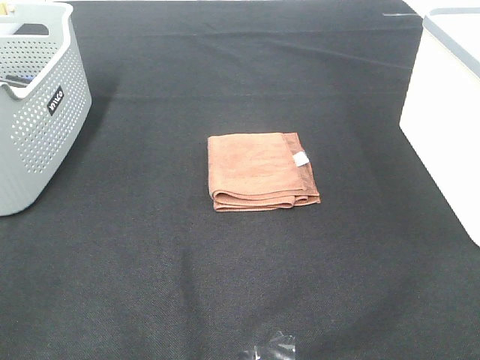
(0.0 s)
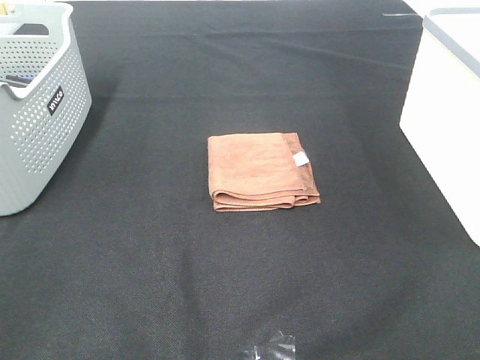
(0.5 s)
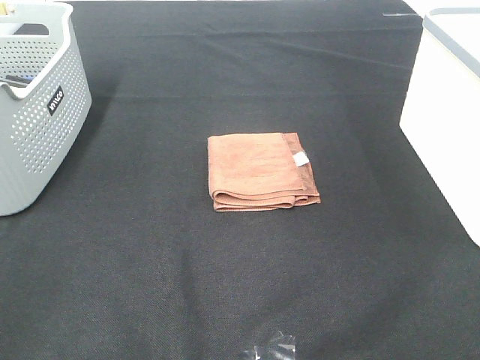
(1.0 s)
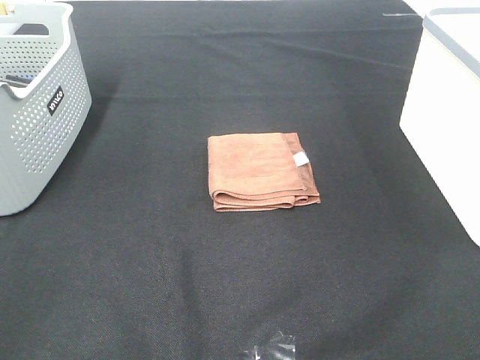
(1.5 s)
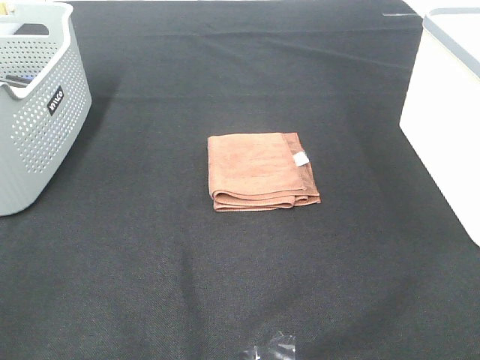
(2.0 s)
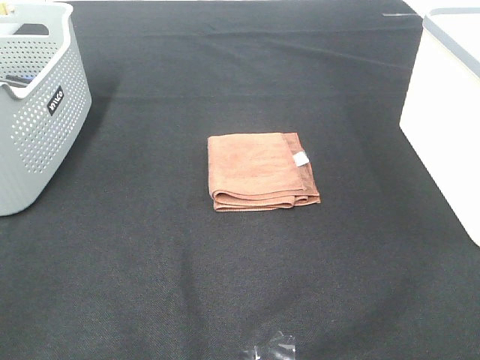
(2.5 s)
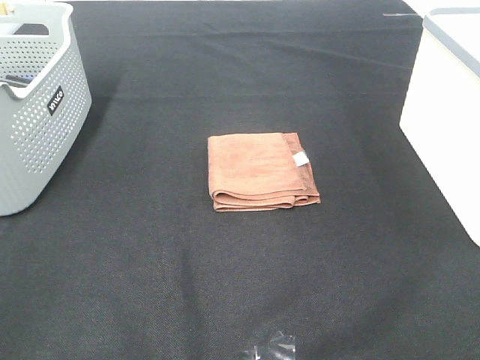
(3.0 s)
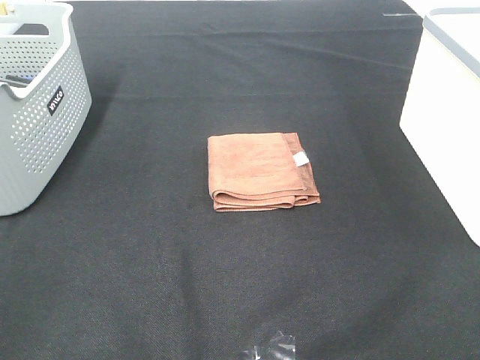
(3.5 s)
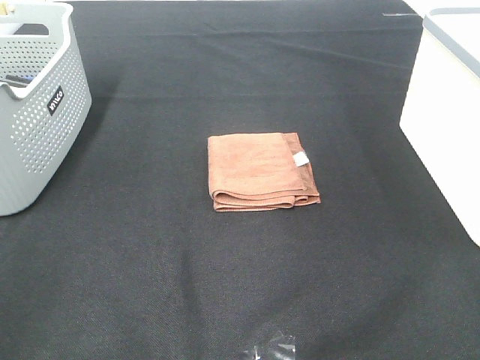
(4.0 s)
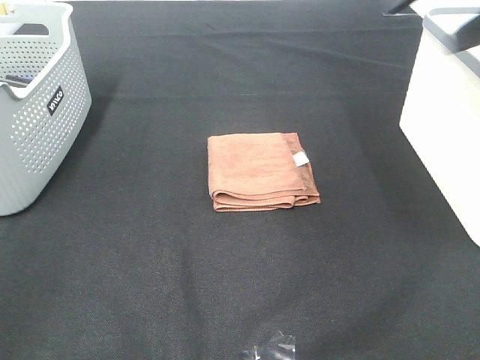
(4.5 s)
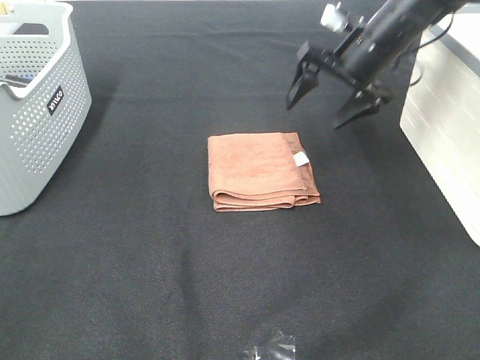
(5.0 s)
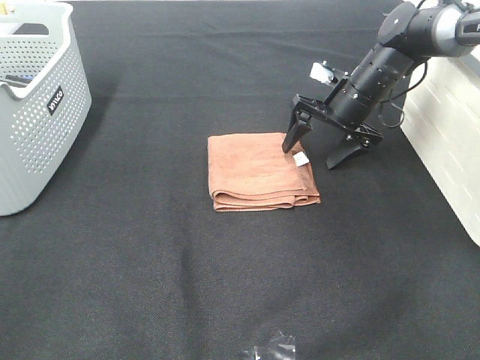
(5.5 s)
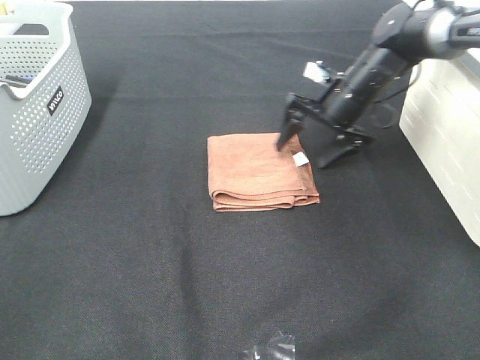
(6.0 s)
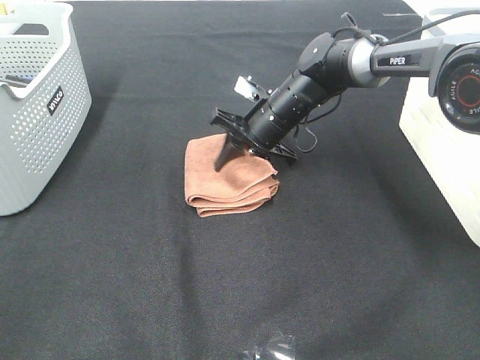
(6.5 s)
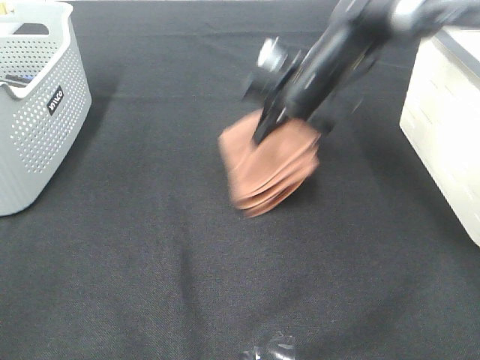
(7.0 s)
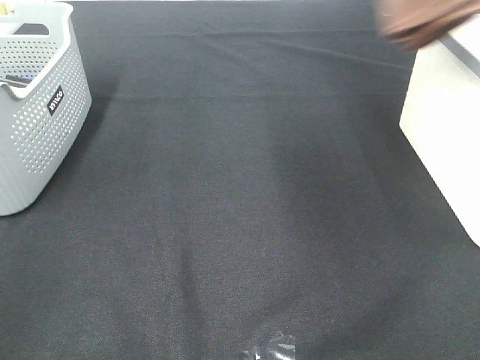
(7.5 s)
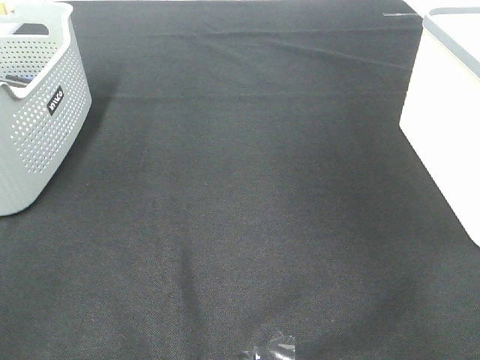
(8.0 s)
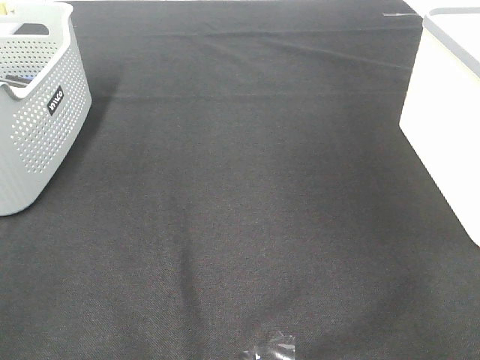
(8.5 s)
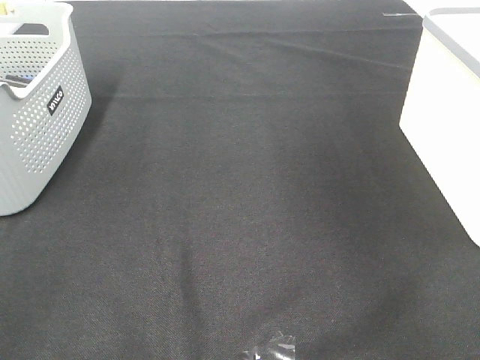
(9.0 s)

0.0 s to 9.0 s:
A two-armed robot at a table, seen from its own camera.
Step, 0.0 to 6.5 s: Right hand: grab the folded brown towel.
Step, 7.0 to 8.5 s: Right hand: place the brown towel in right basket.
0.0 to 2.0 s: Both grippers stay about where they are.
2.0 to 4.5 s: The right gripper goes some 35 cm forward.
4.5 to 7.0 s: The right gripper travels downward, to the left and forward by approximately 25 cm, and closes its fingers.
7.0 to 9.0 s: The right gripper travels to the right and upward by some 30 cm, and opens.

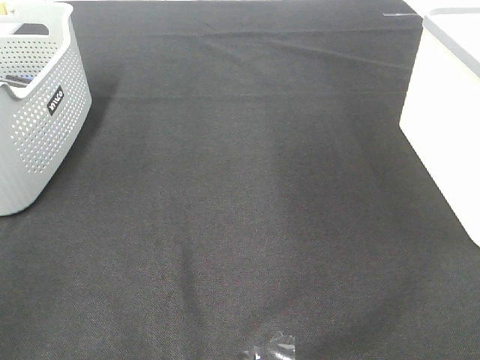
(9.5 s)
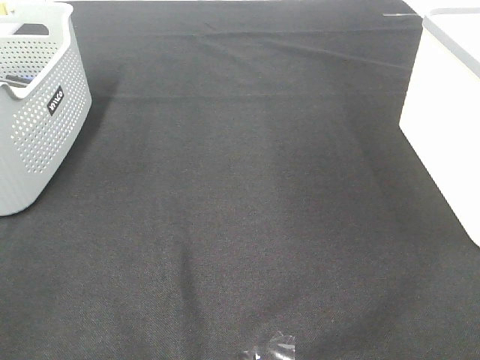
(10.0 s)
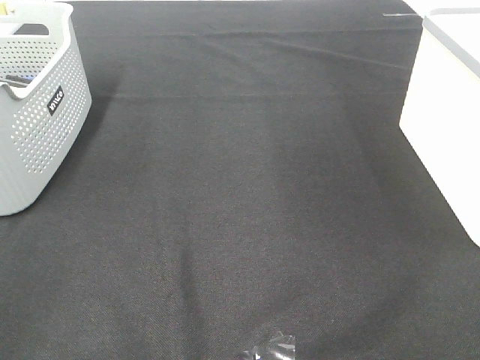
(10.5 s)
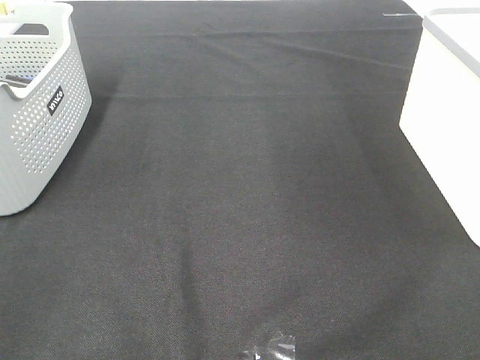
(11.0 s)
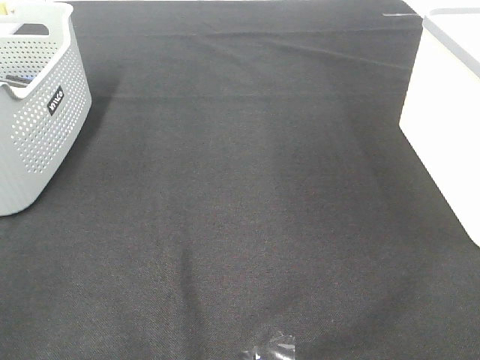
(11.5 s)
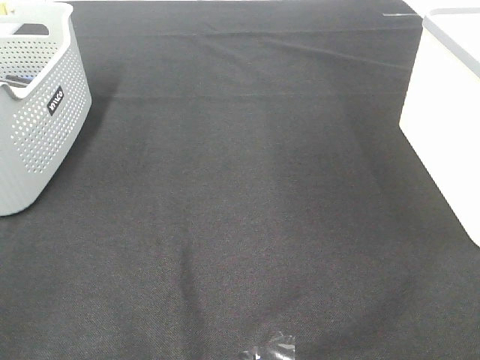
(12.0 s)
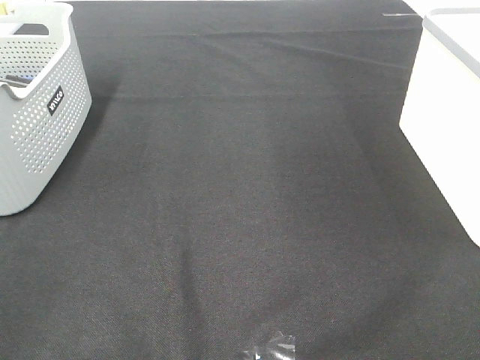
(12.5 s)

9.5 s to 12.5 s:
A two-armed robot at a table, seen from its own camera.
11.0 to 12.5 s: Both grippers stay put.

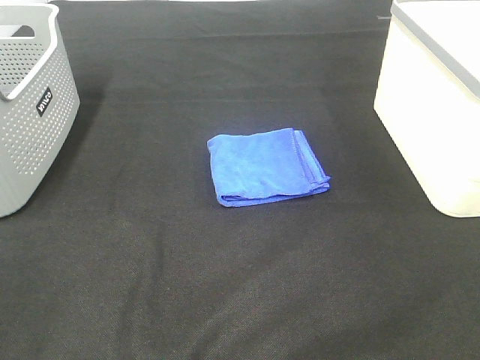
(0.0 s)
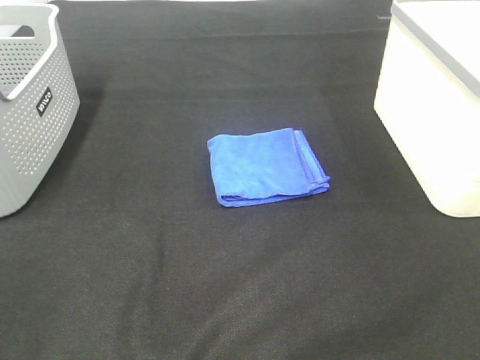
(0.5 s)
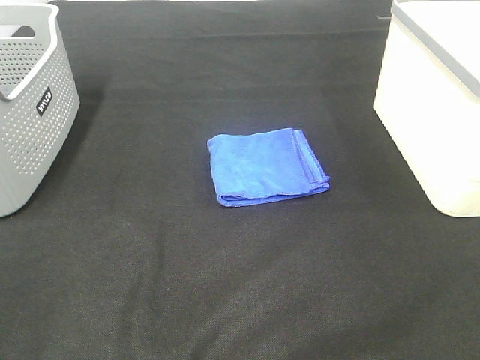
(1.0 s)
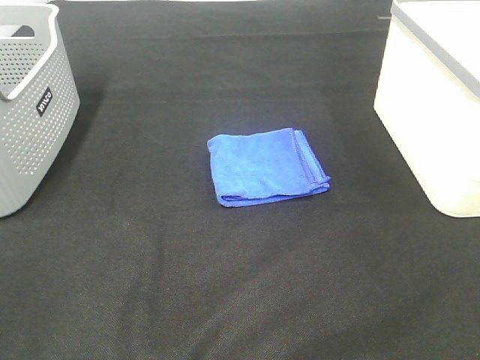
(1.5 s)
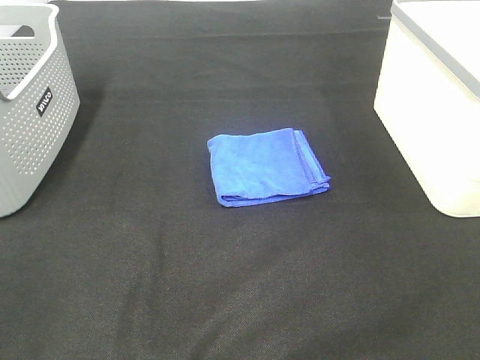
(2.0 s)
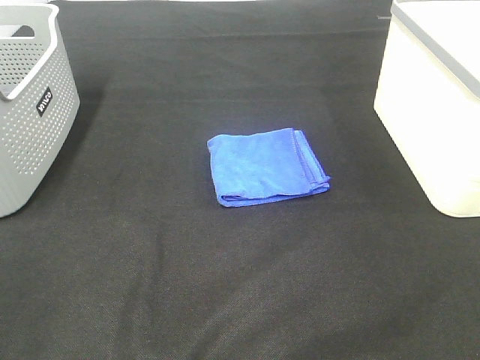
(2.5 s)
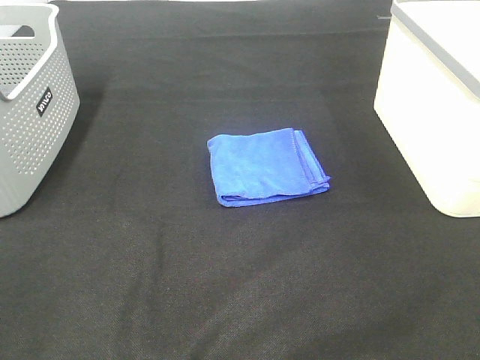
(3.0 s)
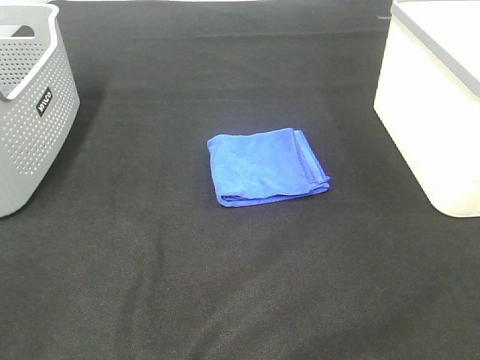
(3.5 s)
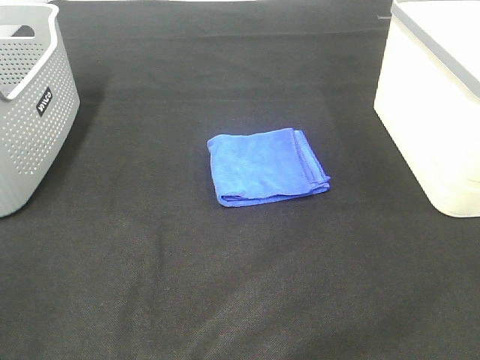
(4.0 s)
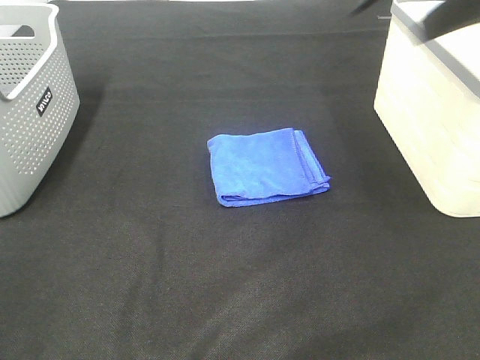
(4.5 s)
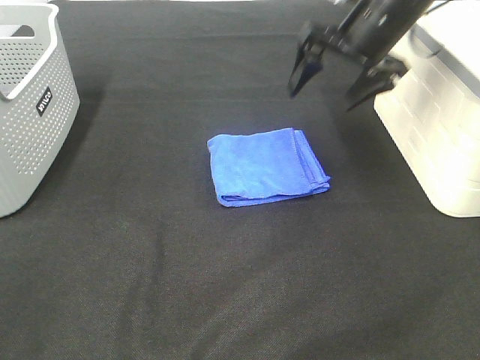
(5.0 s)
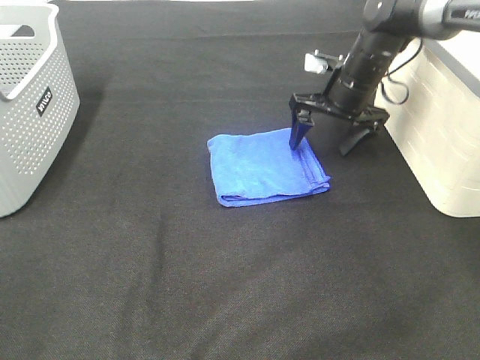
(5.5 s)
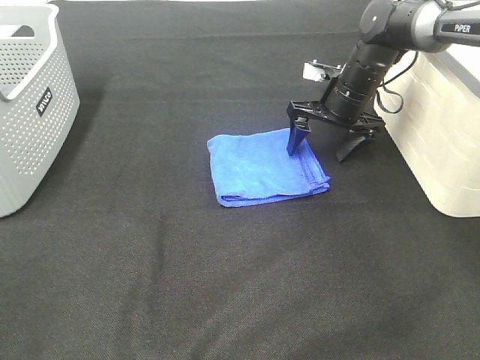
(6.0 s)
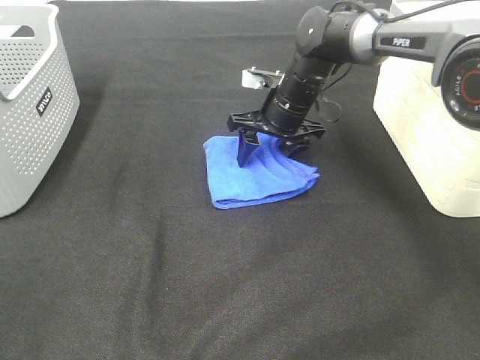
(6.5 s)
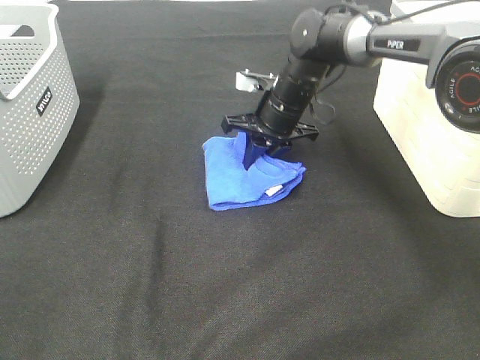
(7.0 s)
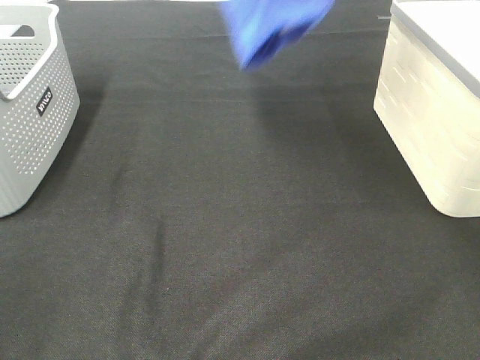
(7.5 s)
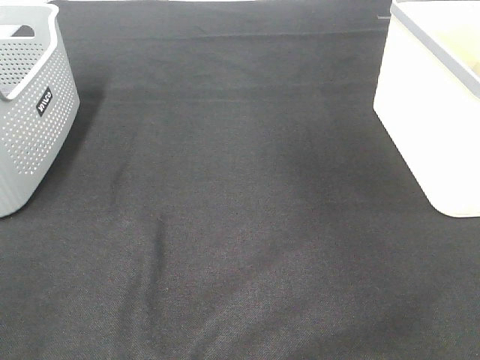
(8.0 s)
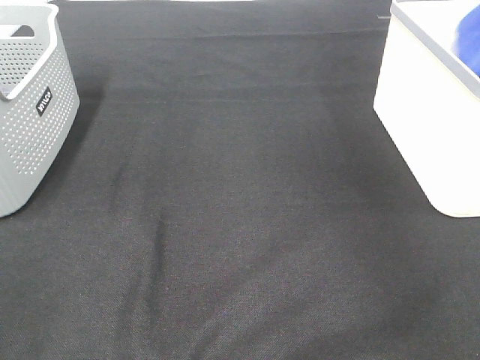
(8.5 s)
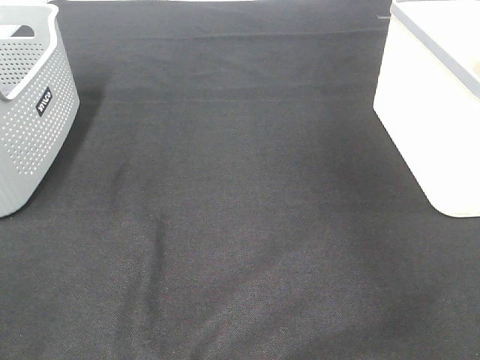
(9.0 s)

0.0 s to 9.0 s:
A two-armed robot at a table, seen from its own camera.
Step, 0.0 to 6.5 s: Right hand: grab the folded blue towel.
Step, 7.0 to 8.5 s: Right hand: place the blue towel in right basket.
0.0 to 2.0 s: Both grippers stay about where they are.
2.0 to 4.5 s: The right gripper shifts about 35 cm forward.
4.5 to 7.0 s: The right gripper is displaced downward, to the left and forward by approximately 30 cm, and closes.
7.0 to 9.0 s: The right gripper swings up and down, some 35 cm each way, with 2 reversals, and opens up.

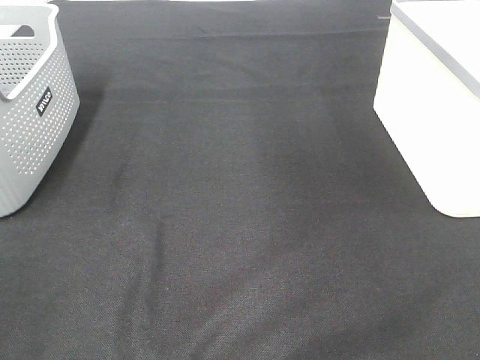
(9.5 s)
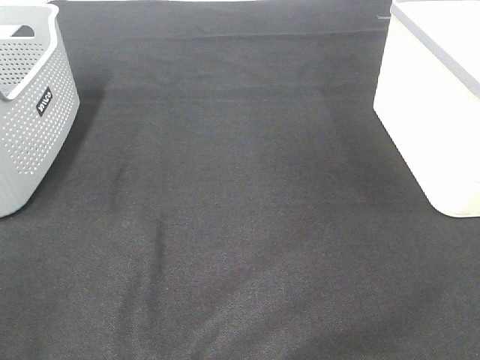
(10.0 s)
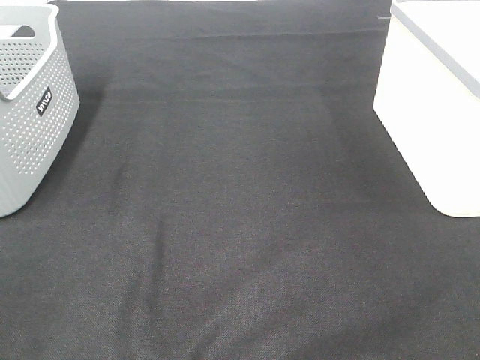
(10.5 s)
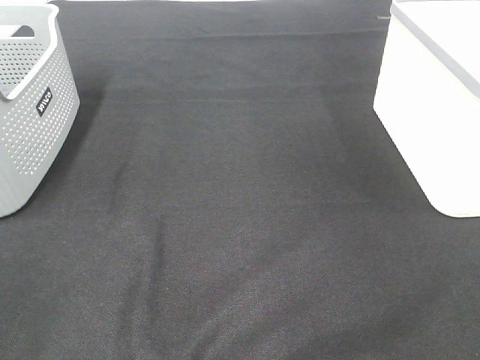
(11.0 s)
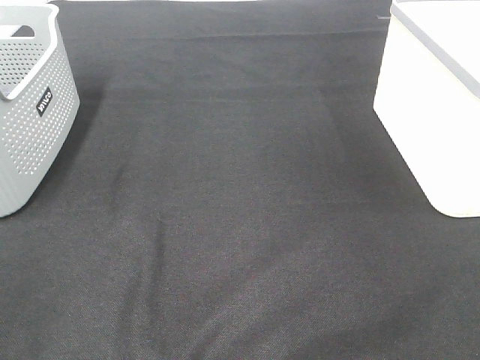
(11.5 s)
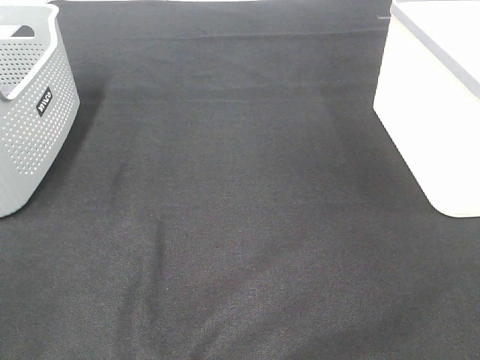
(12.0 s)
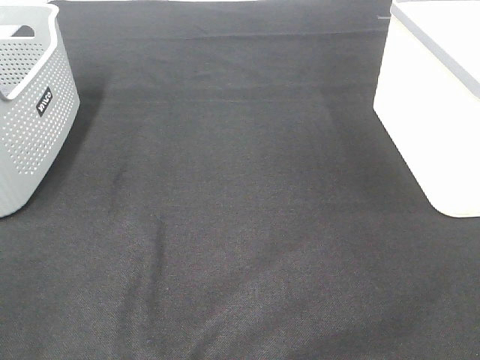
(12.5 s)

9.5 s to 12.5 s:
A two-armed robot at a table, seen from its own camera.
11.0 to 12.5 s: The two grippers keep their place.

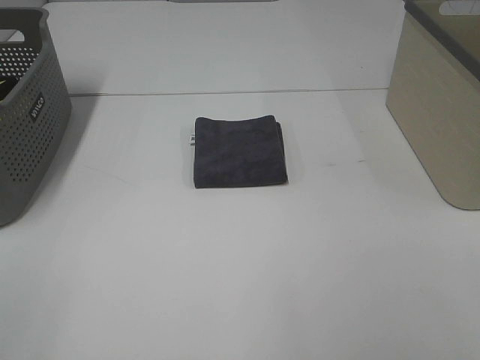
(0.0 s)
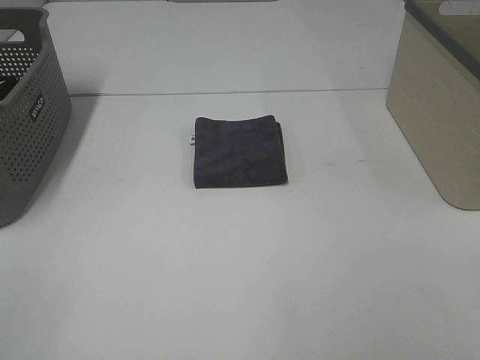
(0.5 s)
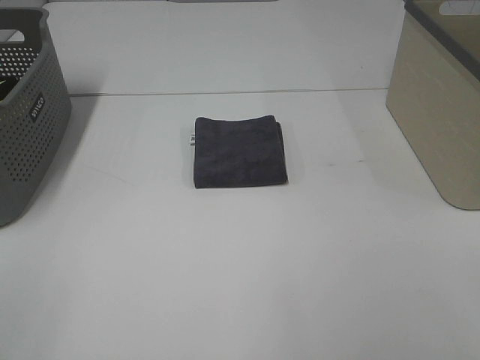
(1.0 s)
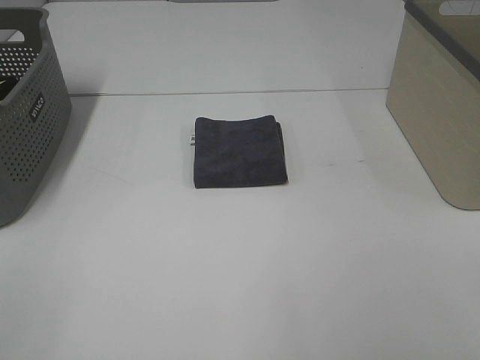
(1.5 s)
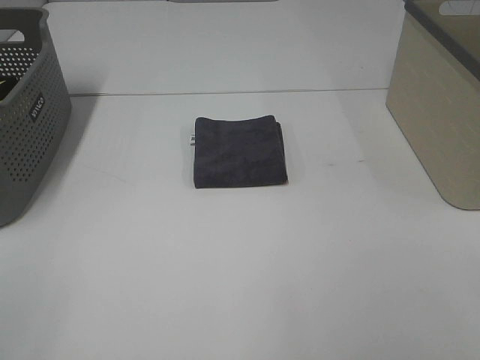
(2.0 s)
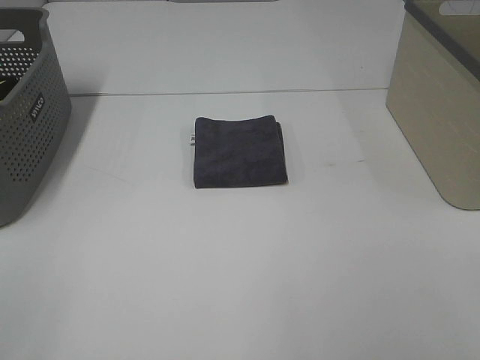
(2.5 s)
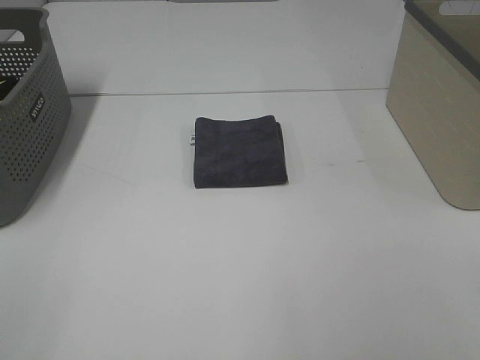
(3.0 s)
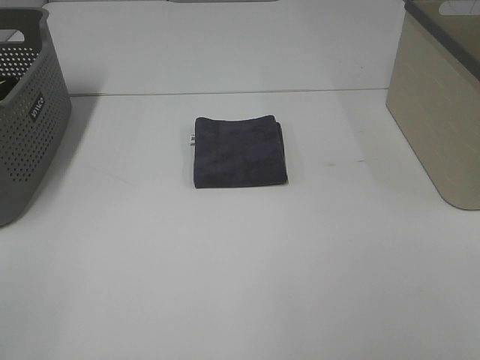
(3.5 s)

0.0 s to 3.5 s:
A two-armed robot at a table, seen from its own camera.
0.0 to 3.5 s: Both grippers stay about where they are.
